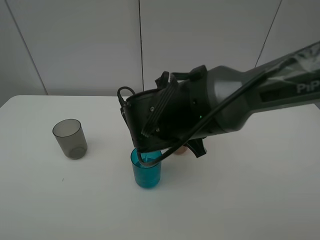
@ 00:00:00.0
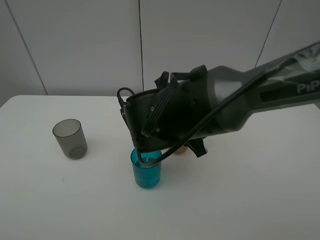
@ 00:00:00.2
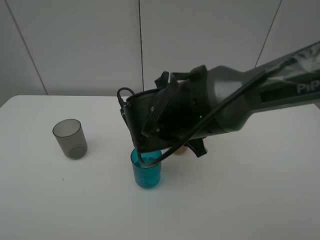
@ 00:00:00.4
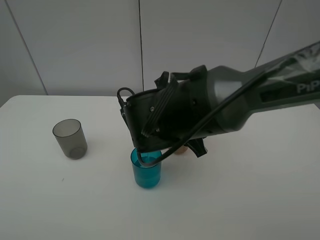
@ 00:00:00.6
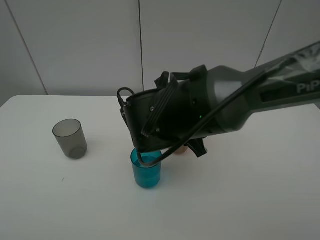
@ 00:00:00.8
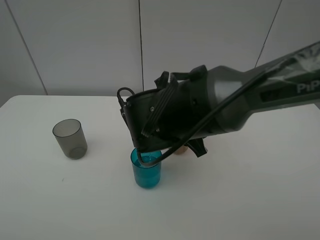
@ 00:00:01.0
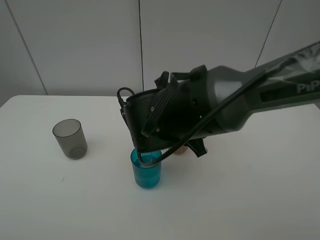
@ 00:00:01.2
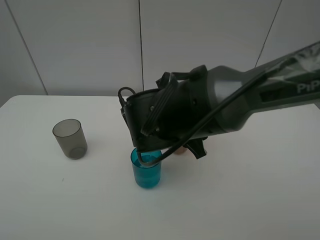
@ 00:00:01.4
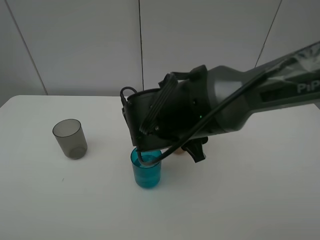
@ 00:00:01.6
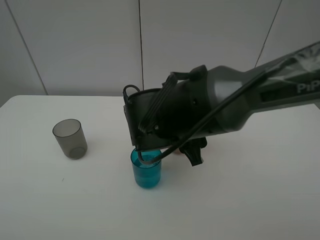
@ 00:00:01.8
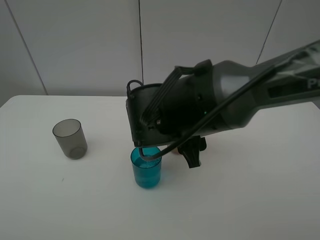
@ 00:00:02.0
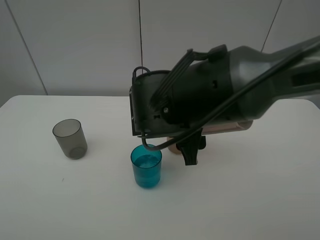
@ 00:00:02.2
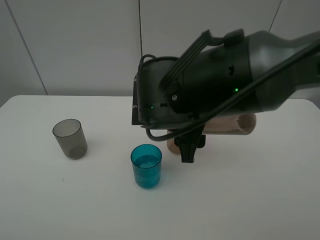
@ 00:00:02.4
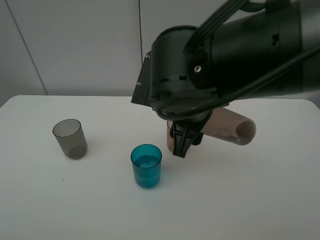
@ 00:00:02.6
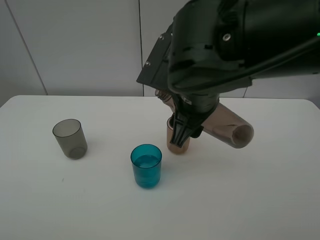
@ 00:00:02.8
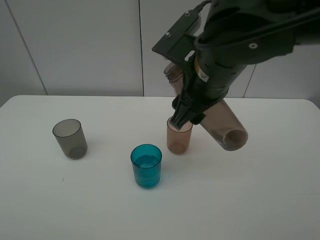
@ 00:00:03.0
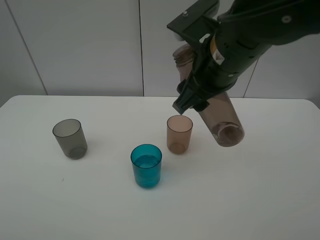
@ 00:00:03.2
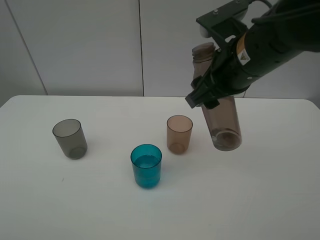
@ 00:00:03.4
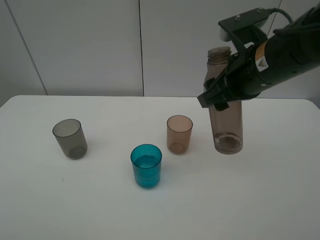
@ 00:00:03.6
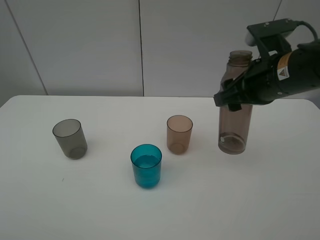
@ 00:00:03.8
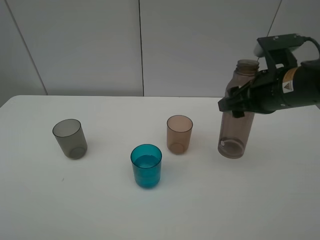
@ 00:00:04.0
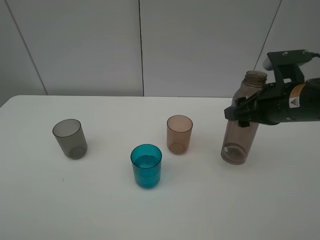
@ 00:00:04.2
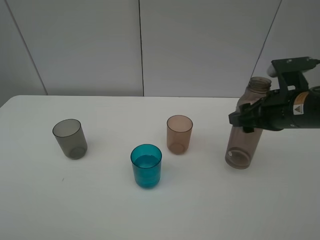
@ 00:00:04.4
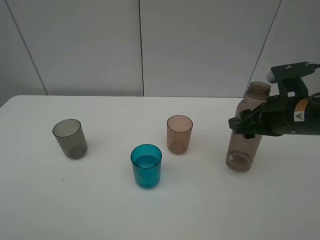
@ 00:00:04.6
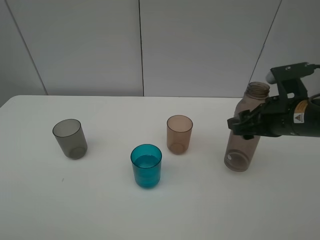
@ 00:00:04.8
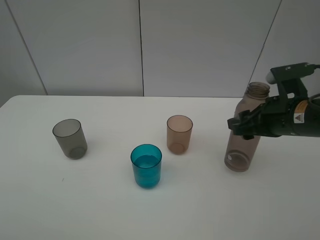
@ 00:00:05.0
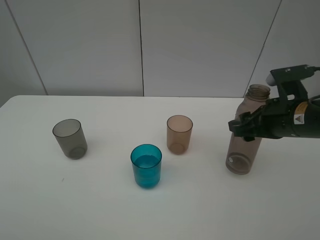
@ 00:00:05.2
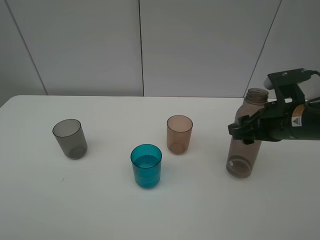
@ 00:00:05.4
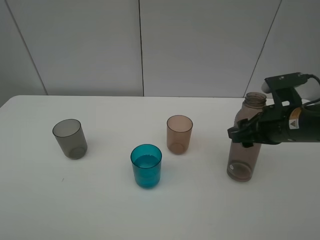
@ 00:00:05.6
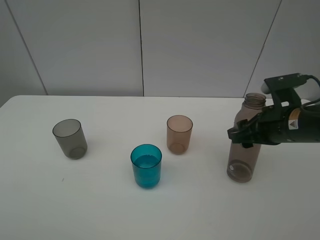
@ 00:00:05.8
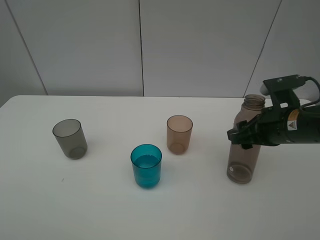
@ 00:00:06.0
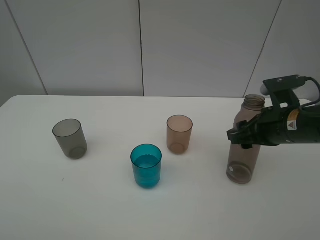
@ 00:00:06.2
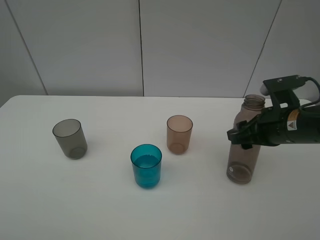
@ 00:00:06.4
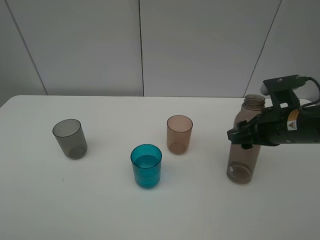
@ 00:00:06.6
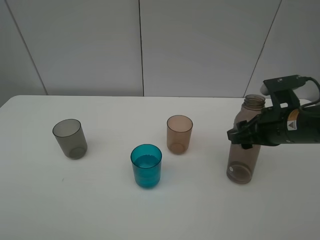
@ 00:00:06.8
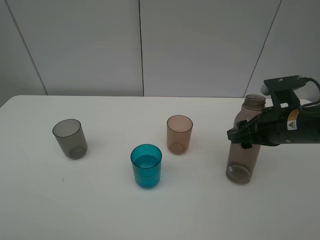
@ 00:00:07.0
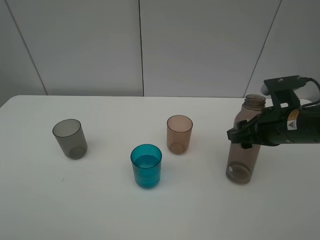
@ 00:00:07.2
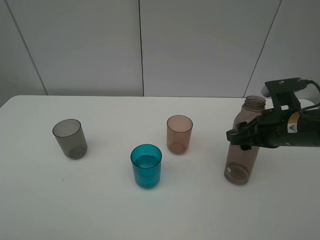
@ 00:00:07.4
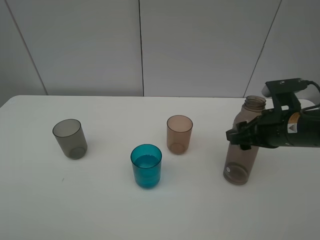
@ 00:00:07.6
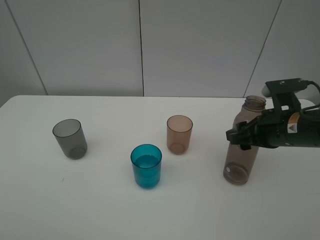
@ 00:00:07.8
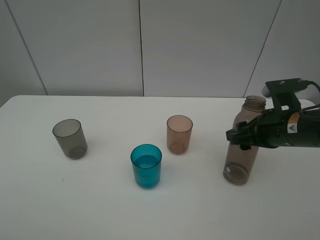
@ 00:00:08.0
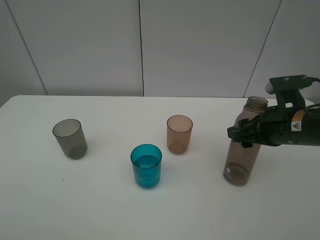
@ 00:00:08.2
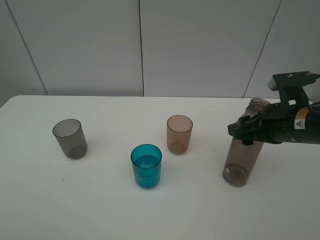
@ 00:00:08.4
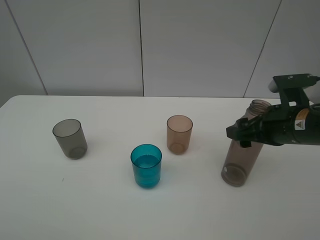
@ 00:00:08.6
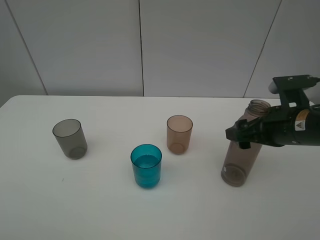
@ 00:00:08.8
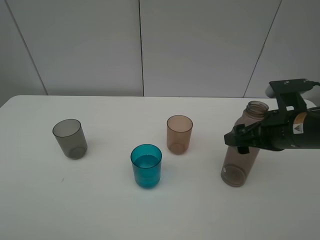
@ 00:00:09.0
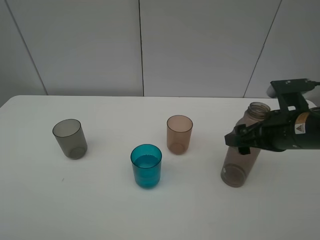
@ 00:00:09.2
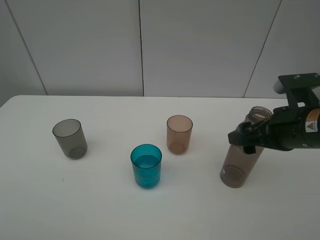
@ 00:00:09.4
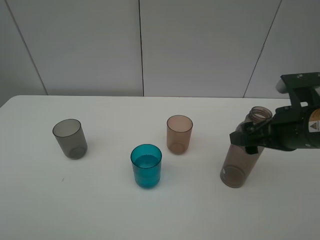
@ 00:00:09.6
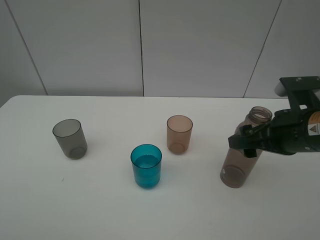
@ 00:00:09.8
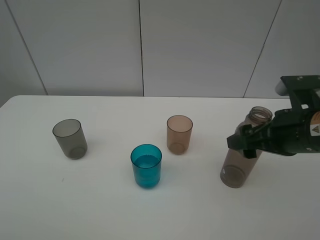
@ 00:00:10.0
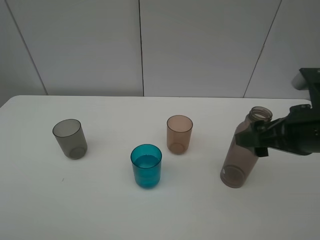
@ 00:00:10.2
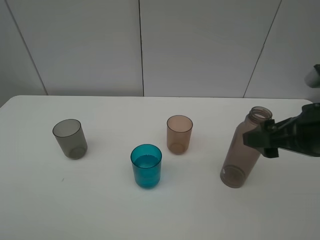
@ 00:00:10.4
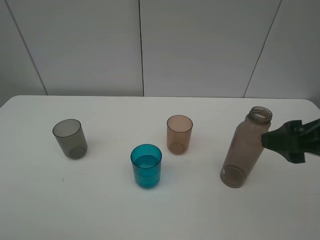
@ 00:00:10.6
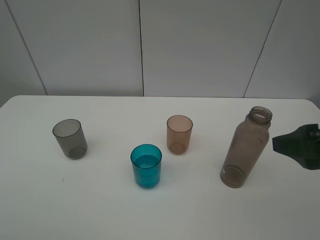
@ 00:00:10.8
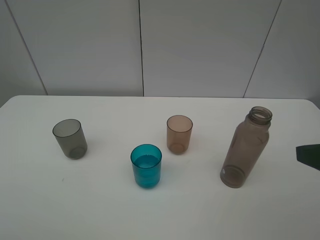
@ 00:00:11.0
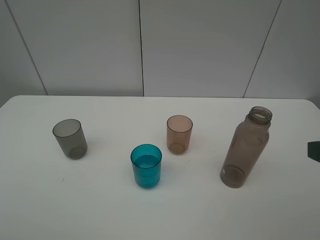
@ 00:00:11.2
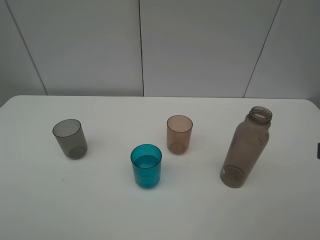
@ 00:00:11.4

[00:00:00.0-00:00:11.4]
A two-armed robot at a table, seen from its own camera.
Task of the whole recording: pick up the bottle filled with water and pour water into the middle cup of the three cups.
Step, 00:00:00.0 to 00:00:10.0: Place the brown bottle with the right gripper.
00:00:00.0 to 00:00:01.4: Neither gripper changes place.
00:00:01.4 to 00:00:02.8: The right gripper shifts roughly 5 cm upward.
00:00:02.8 to 00:00:04.2: The right gripper heads to the right, covering roughly 15 cm.
00:00:04.2 to 00:00:05.6: There are only small adjustments of the grippers.
00:00:05.6 to 00:00:07.2: The two grippers keep their place.
00:00:07.2 to 00:00:08.6: The right gripper opens up.
00:00:08.6 to 00:00:10.0: The grippers stay close to where they were, moving slightly.
00:00:10.0 to 00:00:11.4: The right gripper shifts some 15 cm backward, to the right and upward.

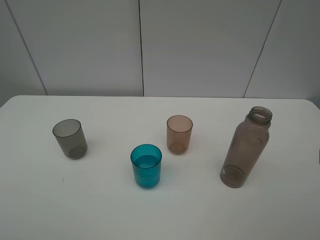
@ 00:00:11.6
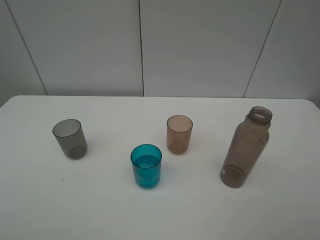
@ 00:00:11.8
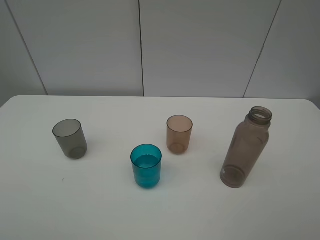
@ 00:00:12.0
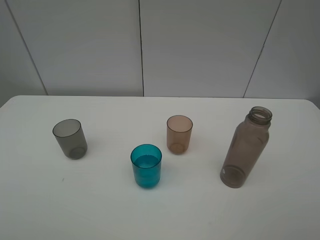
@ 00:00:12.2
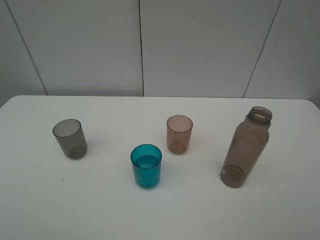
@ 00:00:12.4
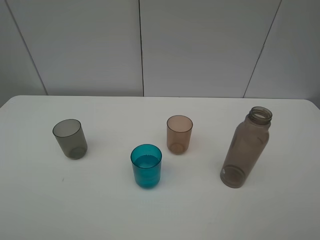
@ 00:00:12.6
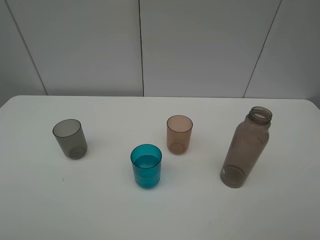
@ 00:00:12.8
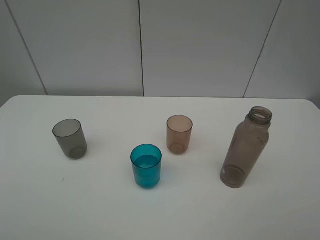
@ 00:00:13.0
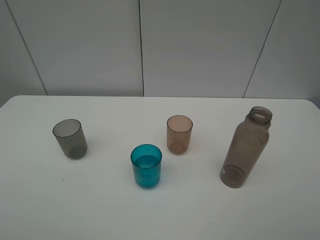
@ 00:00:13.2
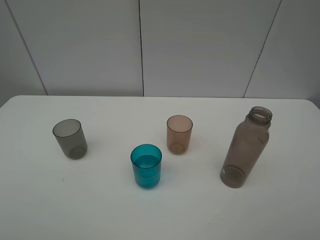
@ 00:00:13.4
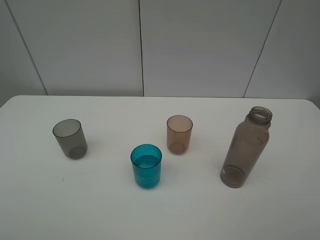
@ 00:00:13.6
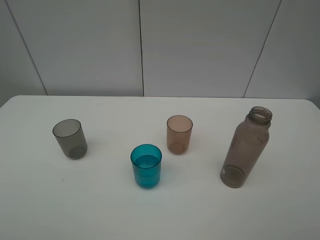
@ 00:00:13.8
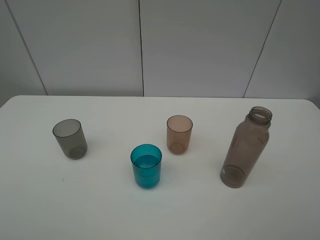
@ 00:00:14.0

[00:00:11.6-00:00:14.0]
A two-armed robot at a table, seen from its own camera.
Task of the whole recording: pick up the bottle filled with water and pour water into the middle cup of the three cups.
00:00:12.8 to 00:00:14.0: Both grippers stay about where they are.
